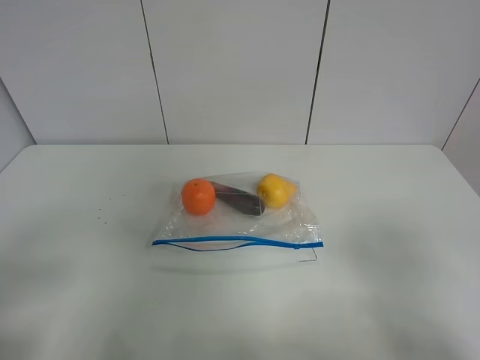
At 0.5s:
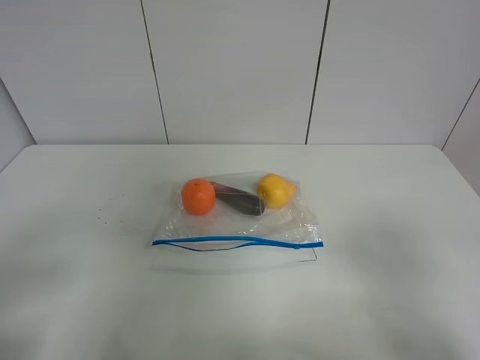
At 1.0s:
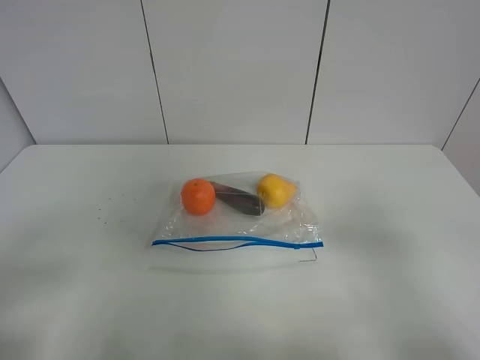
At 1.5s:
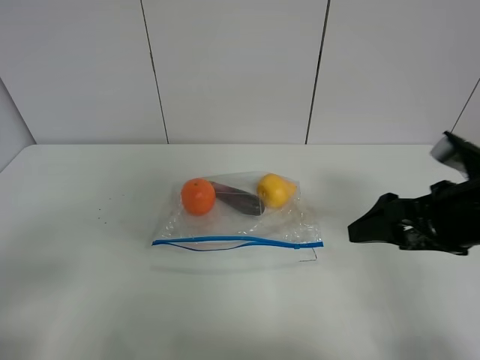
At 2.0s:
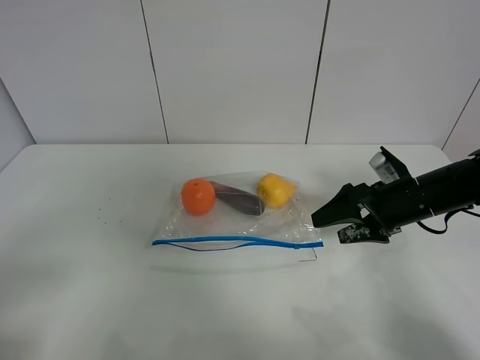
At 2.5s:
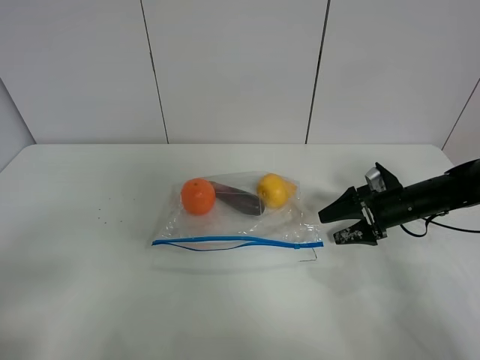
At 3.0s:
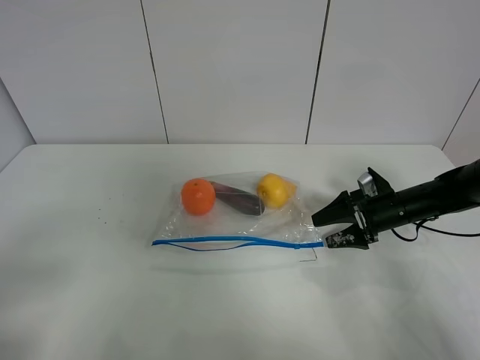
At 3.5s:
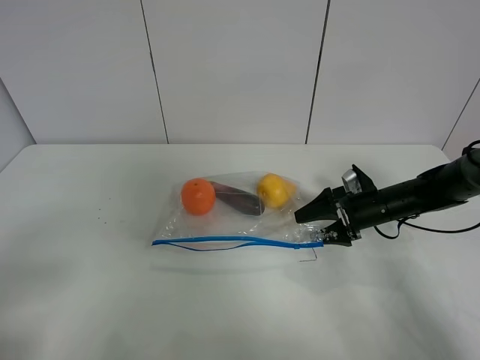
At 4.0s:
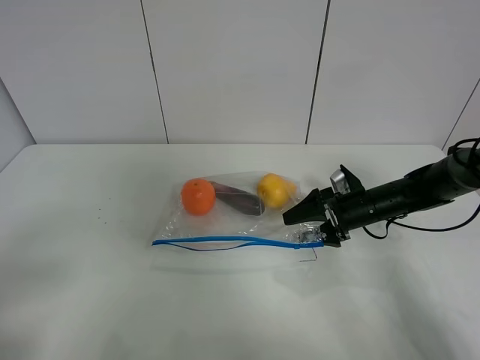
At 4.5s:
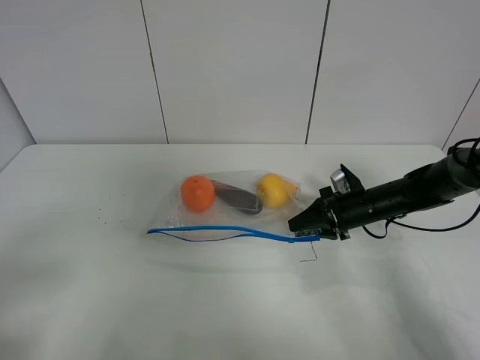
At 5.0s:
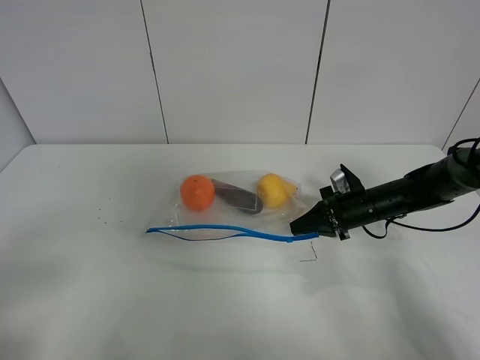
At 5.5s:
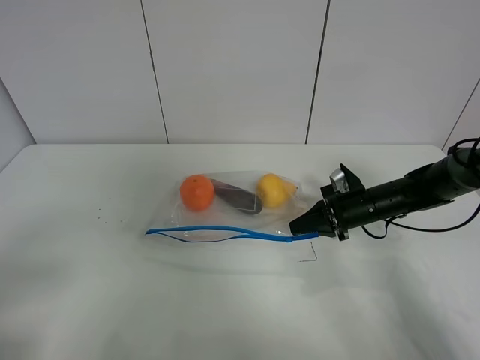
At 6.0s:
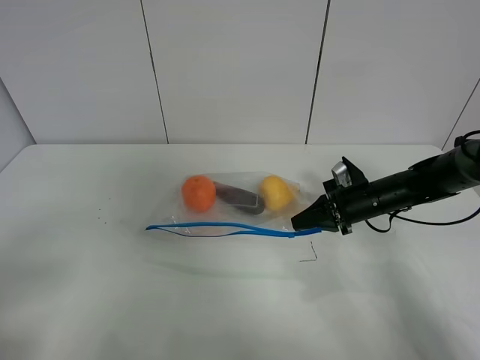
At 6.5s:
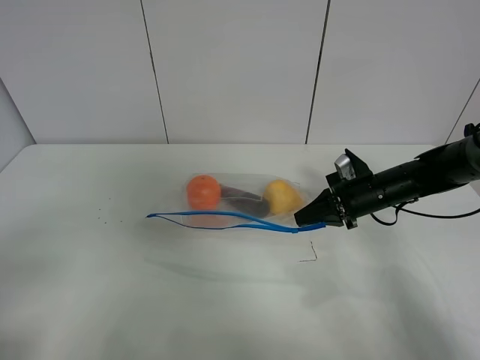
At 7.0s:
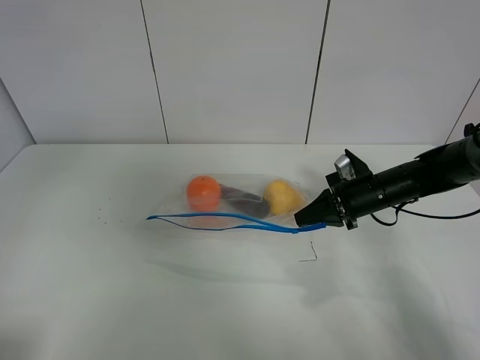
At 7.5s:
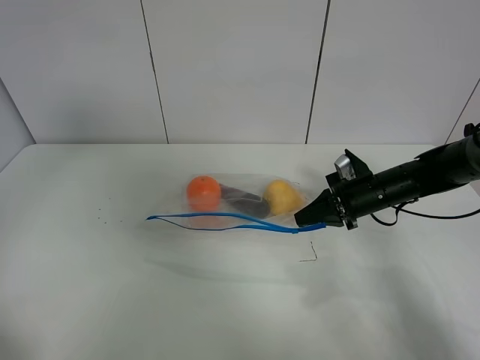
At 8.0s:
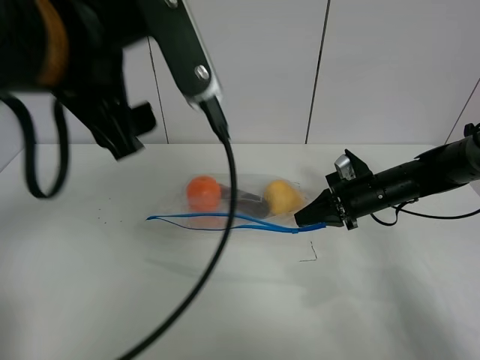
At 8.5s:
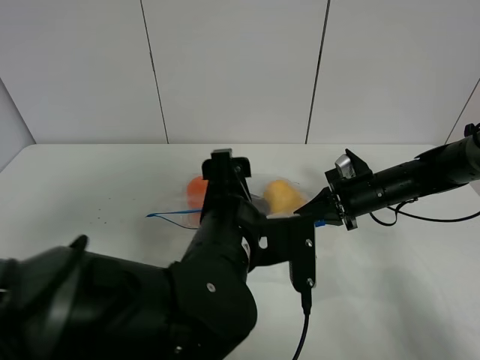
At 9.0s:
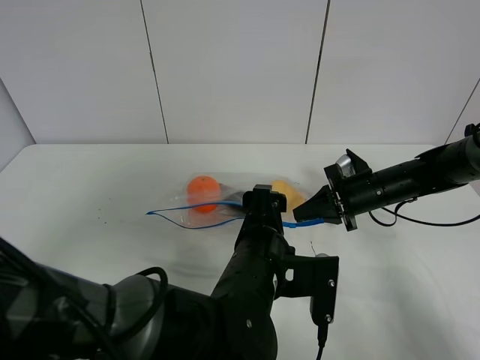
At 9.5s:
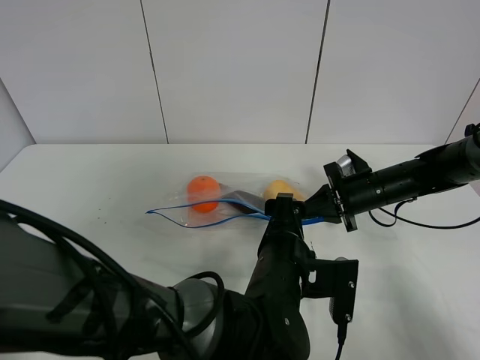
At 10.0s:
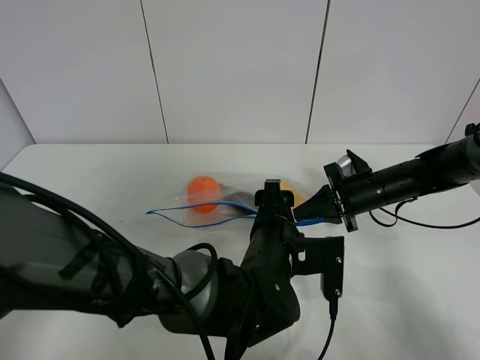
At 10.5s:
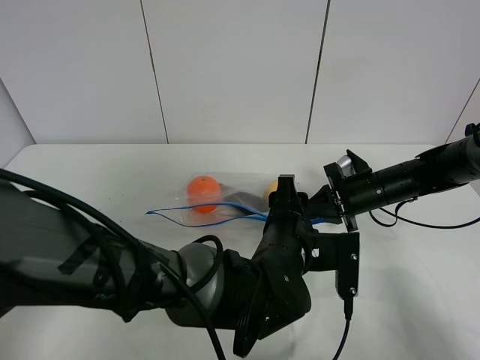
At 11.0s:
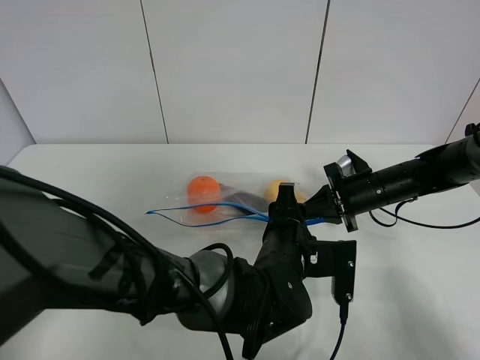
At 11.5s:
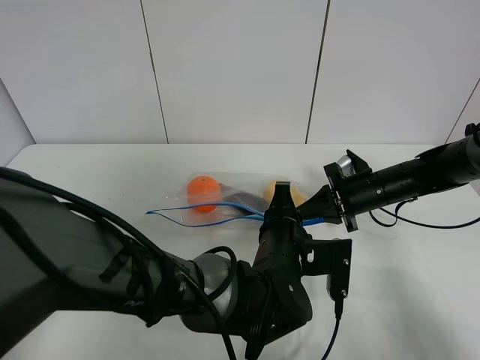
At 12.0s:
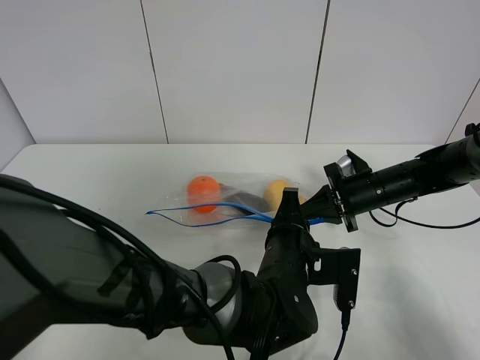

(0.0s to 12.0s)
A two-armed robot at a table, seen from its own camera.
Step, 0.0s - 4.5s: Grasp the fruit bag with right gripper.
0.0s - 2.0s: The right gripper is displaced forward and downward by approximately 30 cm.
2.0s - 4.0s: The right gripper travels downward and forward by approximately 10 cm.
4.0s - 6.0s: The right gripper closes its fingers.
6.0s - 8.0s: The left gripper moves to the right, forward and upward, approximately 30 cm.
8.0s - 10.0s: The left gripper is displaced downward and to the right by some 30 cm.
10.0s - 12.0s: The left gripper closes.

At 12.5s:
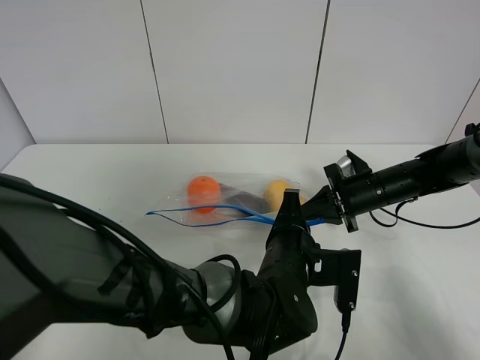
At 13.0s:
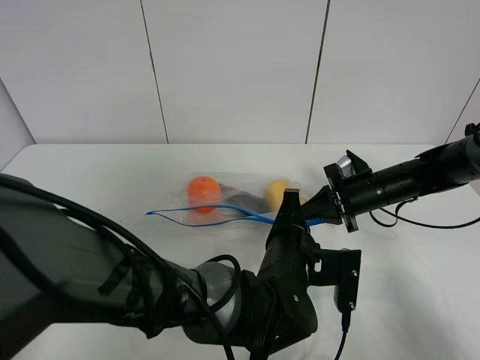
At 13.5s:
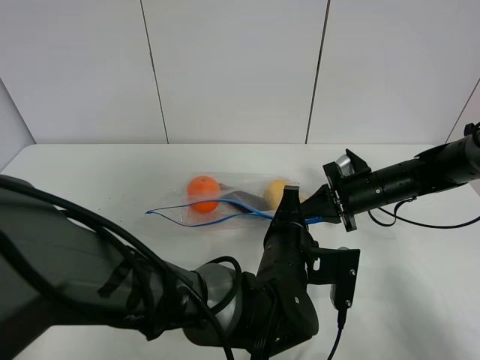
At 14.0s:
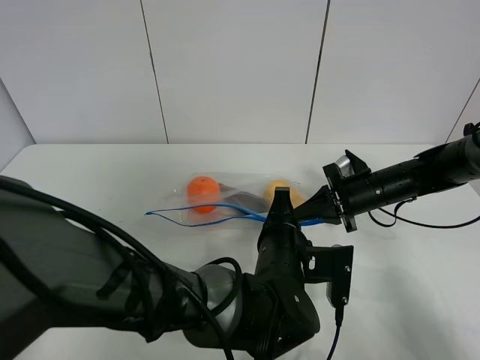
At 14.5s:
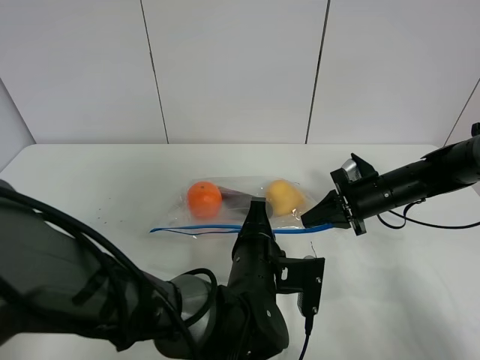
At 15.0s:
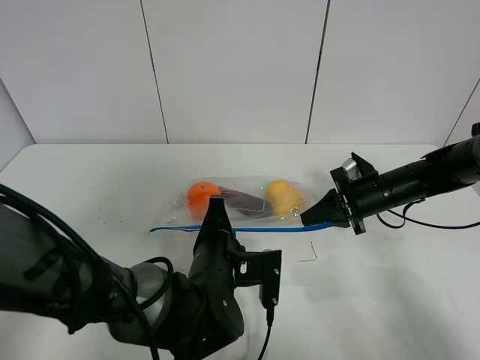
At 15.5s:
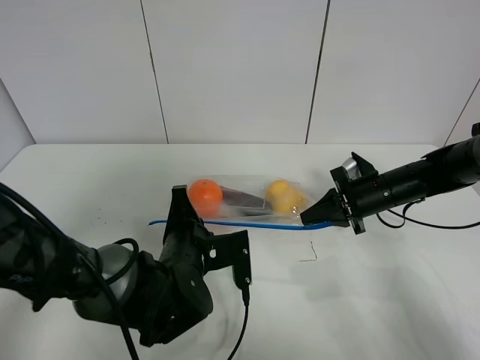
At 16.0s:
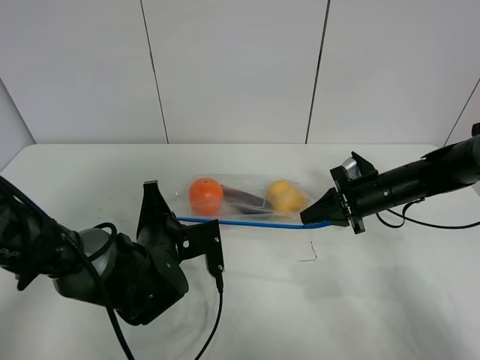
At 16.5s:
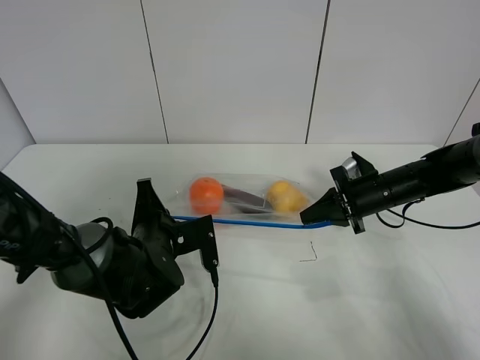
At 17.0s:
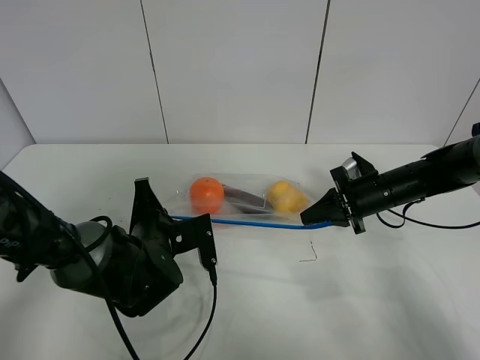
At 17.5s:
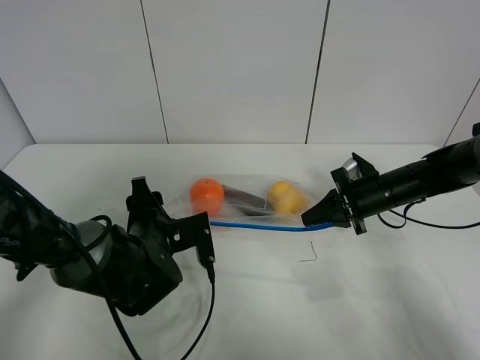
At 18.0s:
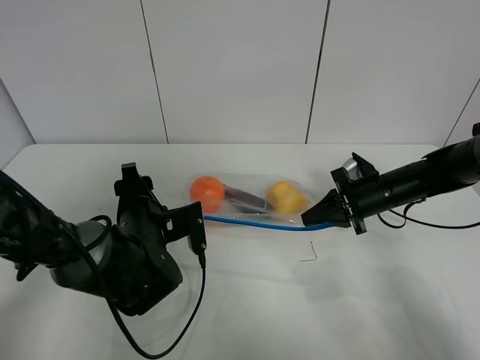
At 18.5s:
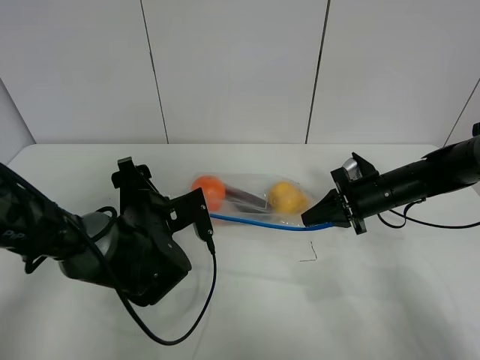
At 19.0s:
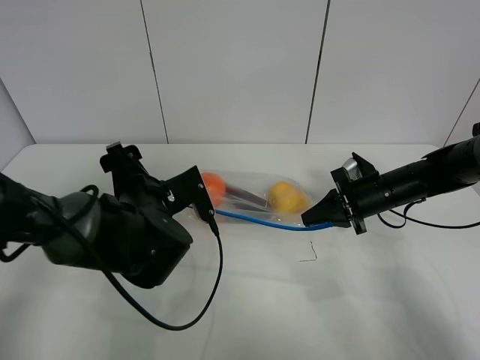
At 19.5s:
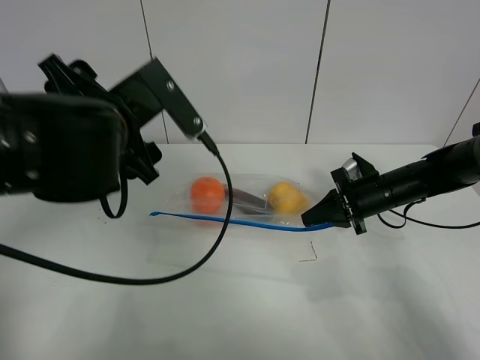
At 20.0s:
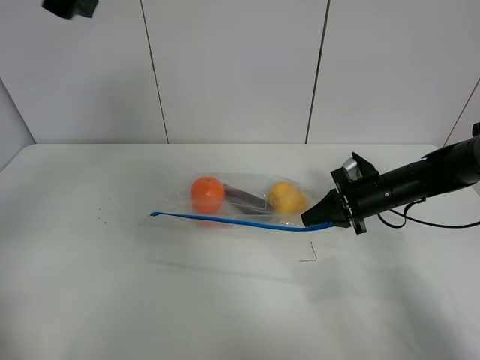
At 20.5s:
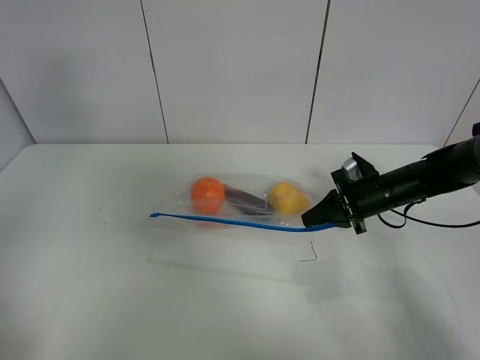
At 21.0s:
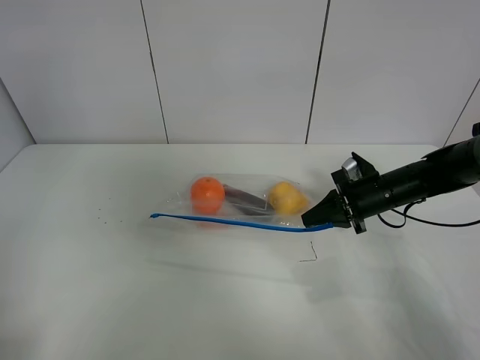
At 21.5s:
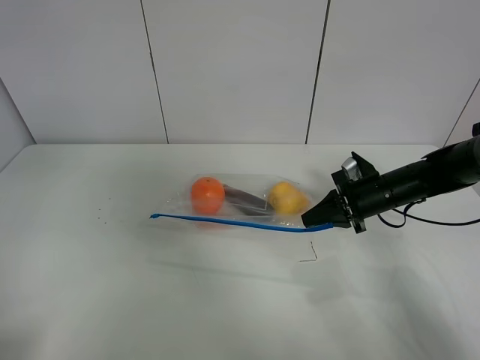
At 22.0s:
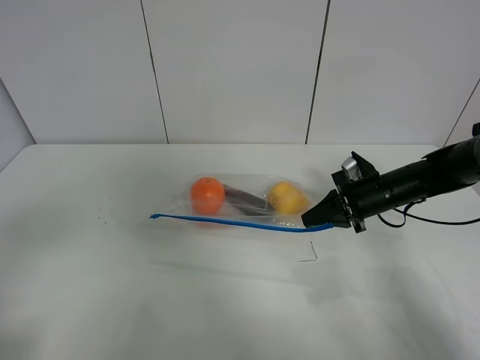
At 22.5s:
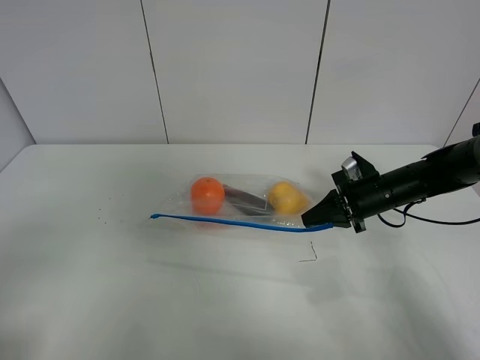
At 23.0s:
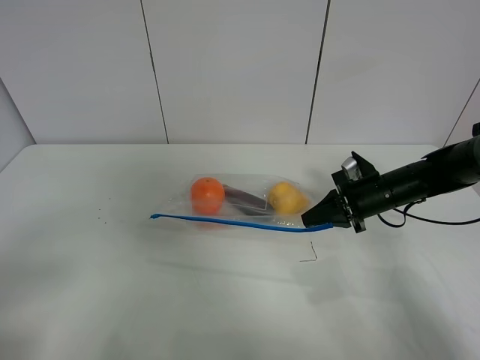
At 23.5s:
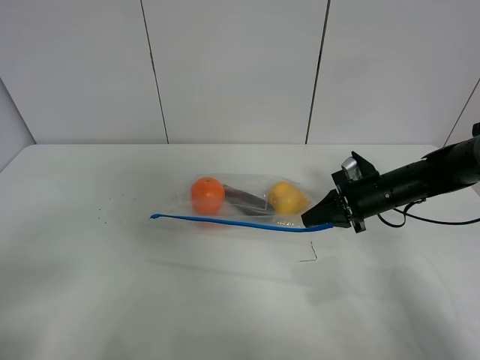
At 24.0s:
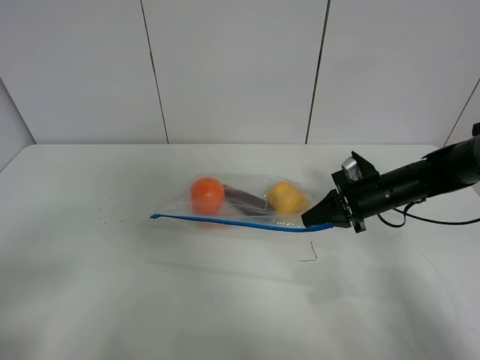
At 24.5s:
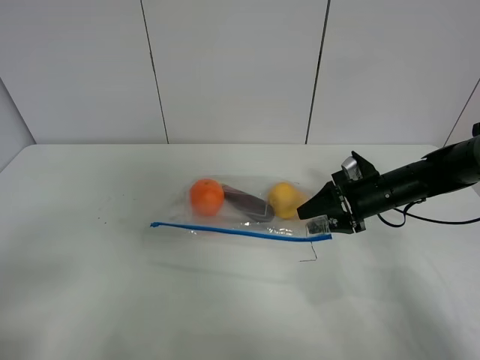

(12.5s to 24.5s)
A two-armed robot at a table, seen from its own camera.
Step, 12.5s - 17.5s: Pull the fruit bag with left gripper.
12.5s - 14.5s: The grippers make only small movements.
14.5s - 16.5s: The left gripper shifts approximately 15 cm to the left.
16.5s - 18.5s: The left gripper opens its fingers.
18.5s - 20.5s: The left gripper travels upward and to the left by about 40 cm.
20.5s - 22.5s: The left gripper shifts some 30 cm backward and downward.
22.5s - 24.5s: The right gripper opens its fingers.

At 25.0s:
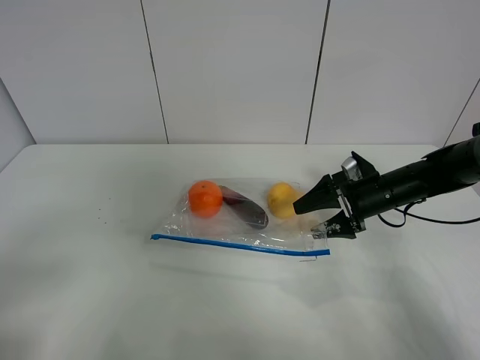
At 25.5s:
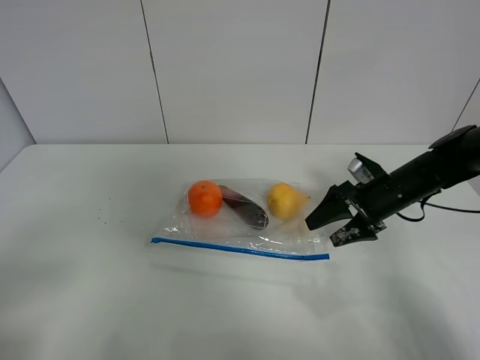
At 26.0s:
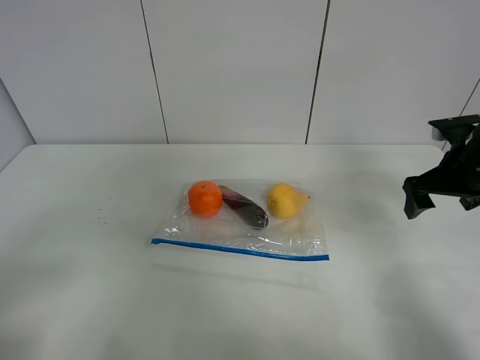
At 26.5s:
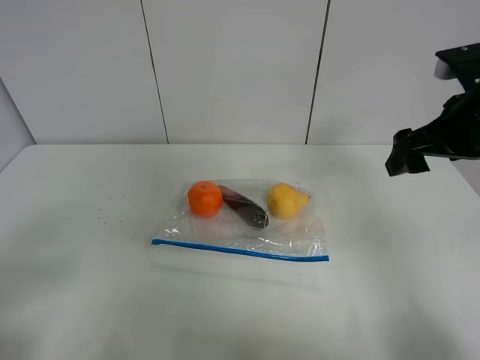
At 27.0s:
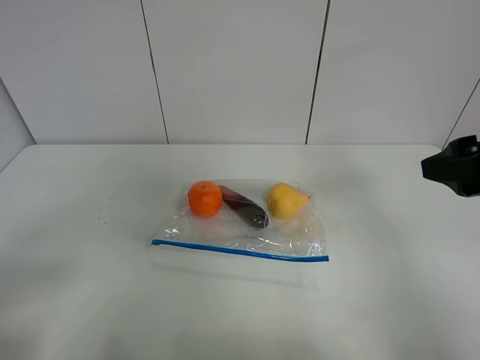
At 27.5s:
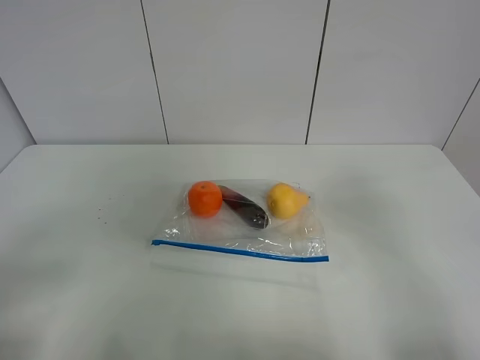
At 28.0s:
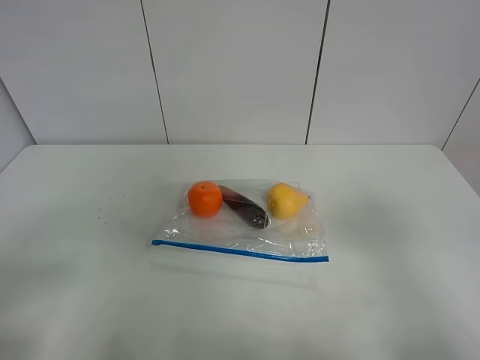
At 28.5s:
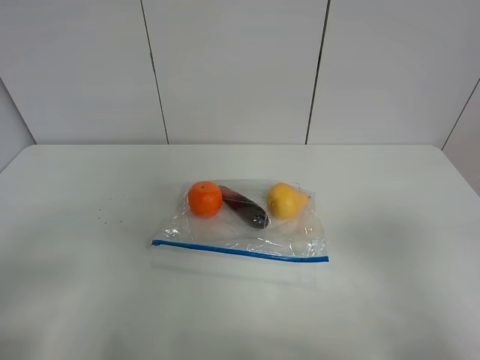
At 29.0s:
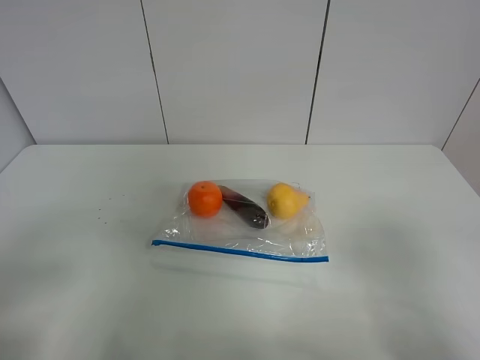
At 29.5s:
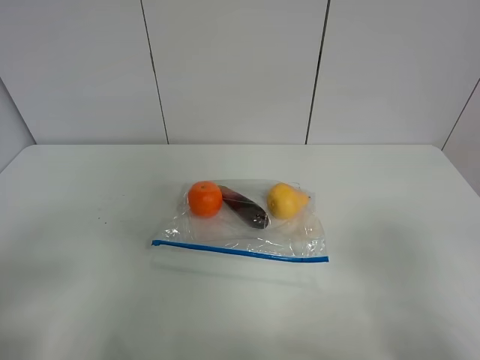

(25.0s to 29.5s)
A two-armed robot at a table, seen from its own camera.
25.0s - 27.0s: The right gripper heads upward and backward, covering some 30 cm.
27.0s - 29.5s: The right gripper heads backward, covering about 15 cm.
